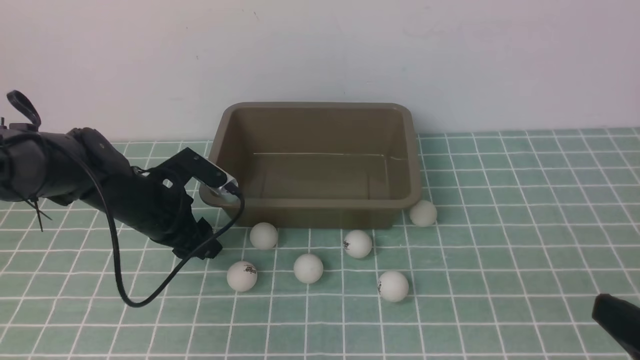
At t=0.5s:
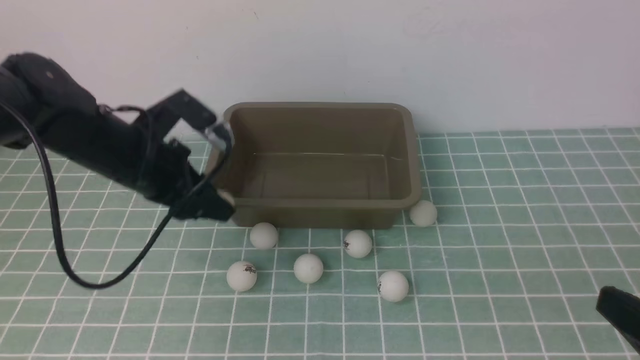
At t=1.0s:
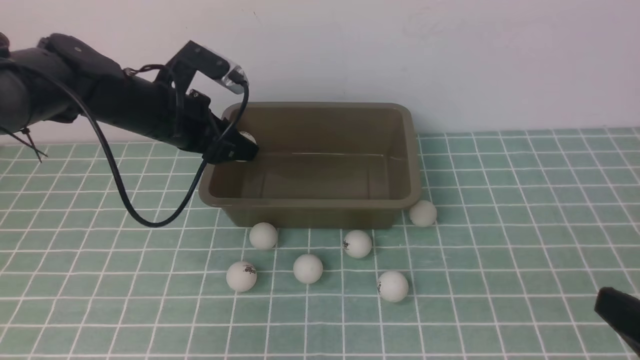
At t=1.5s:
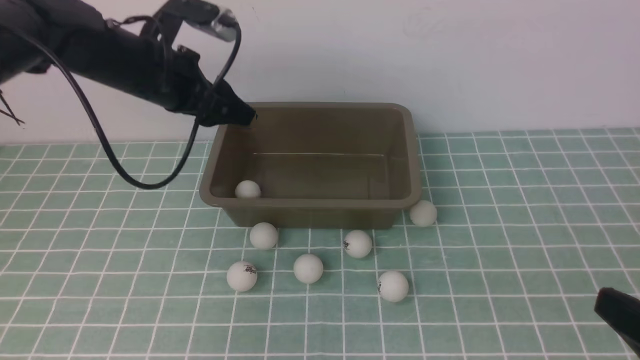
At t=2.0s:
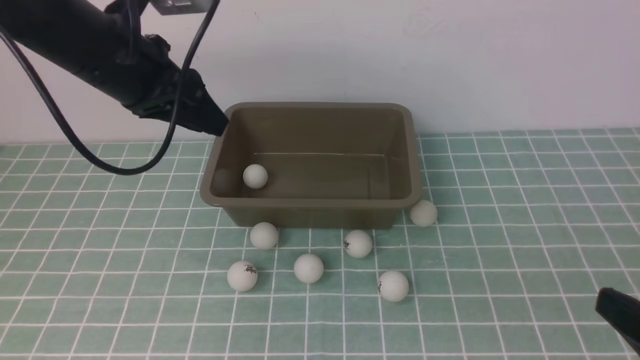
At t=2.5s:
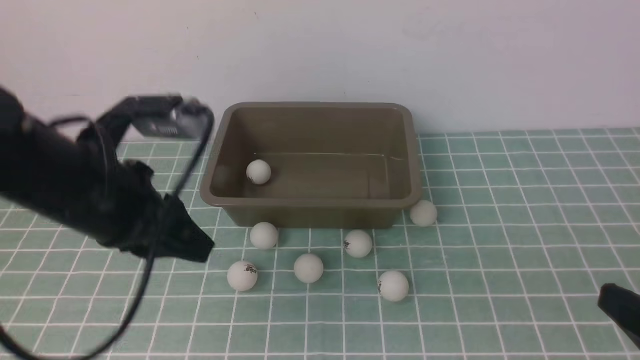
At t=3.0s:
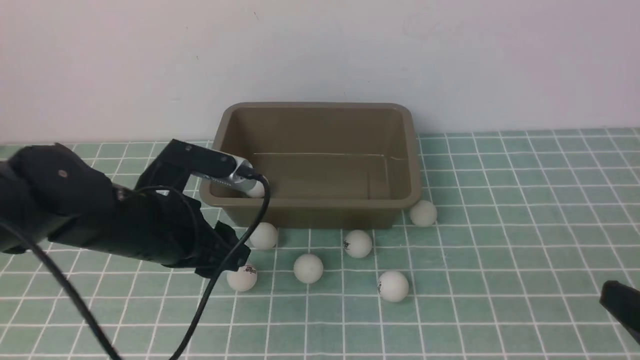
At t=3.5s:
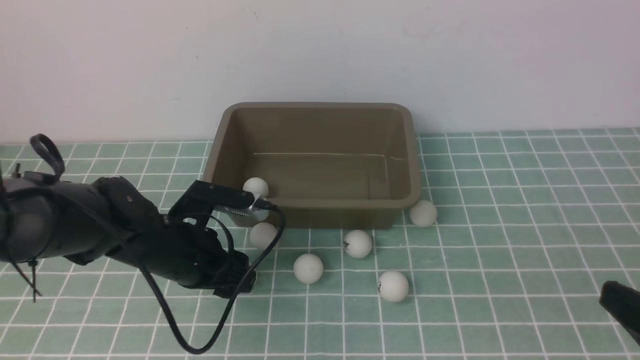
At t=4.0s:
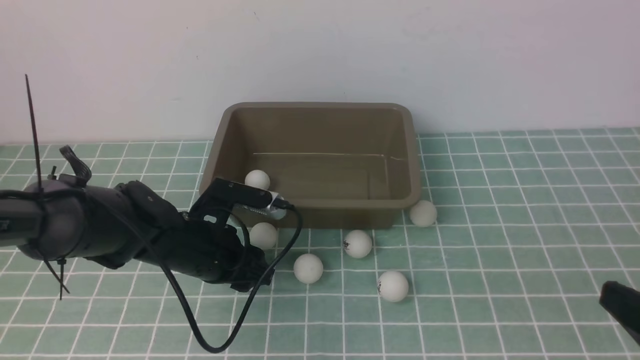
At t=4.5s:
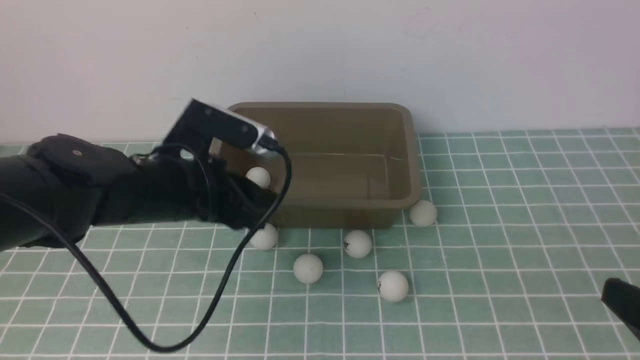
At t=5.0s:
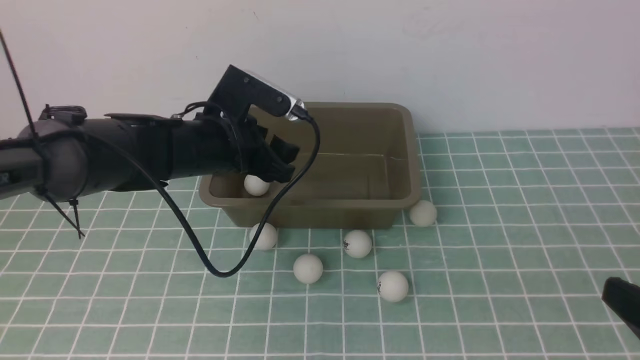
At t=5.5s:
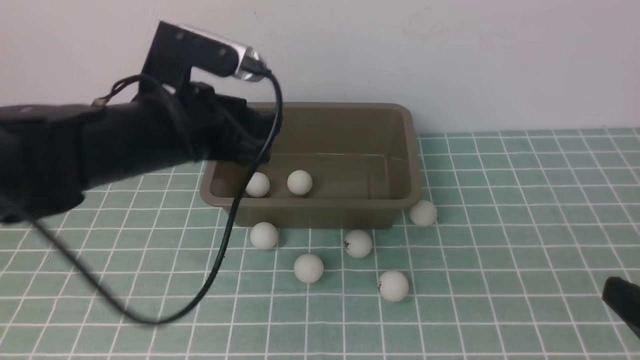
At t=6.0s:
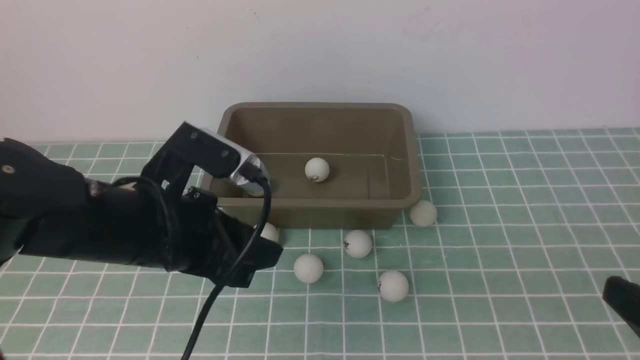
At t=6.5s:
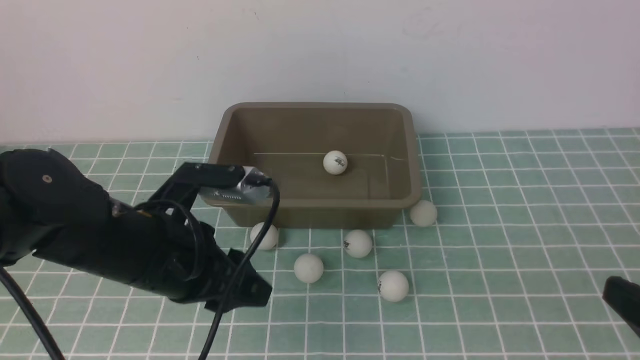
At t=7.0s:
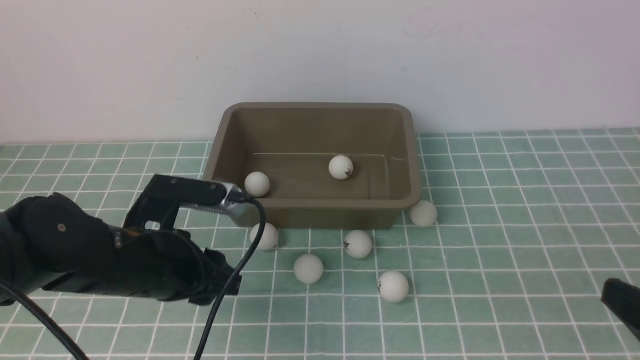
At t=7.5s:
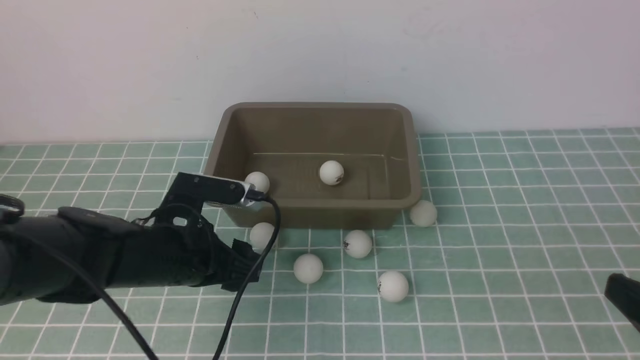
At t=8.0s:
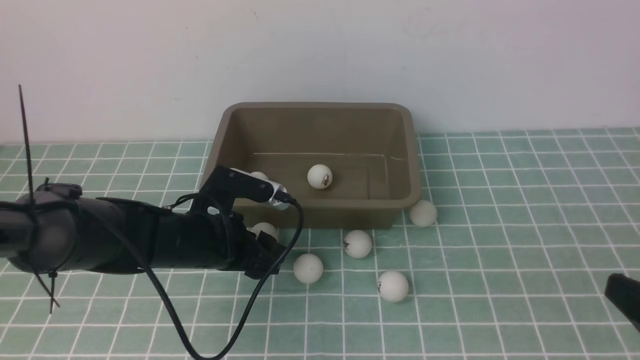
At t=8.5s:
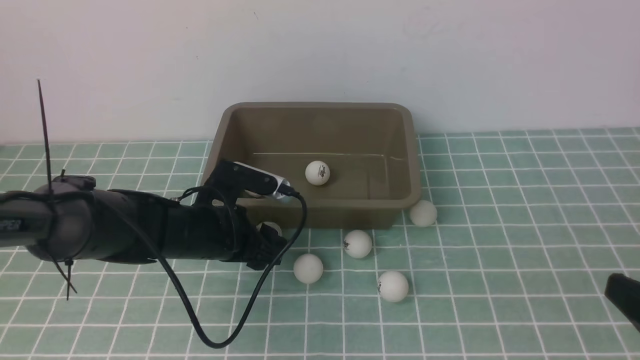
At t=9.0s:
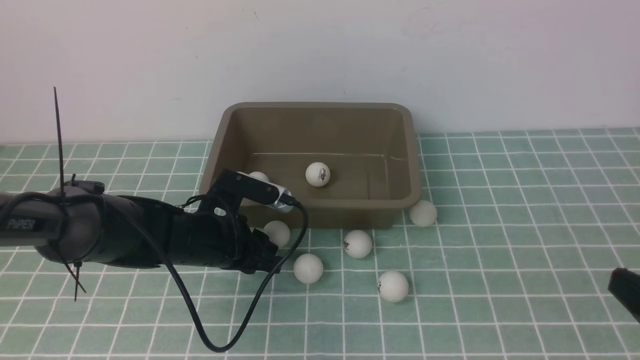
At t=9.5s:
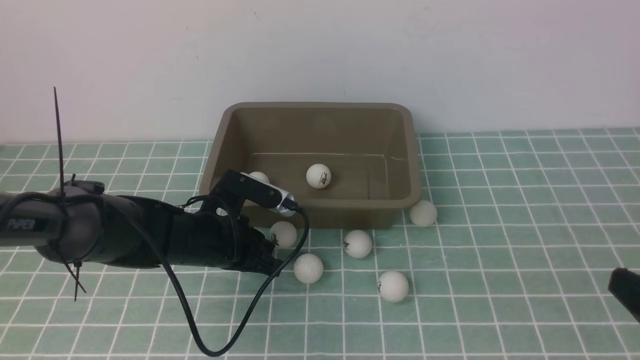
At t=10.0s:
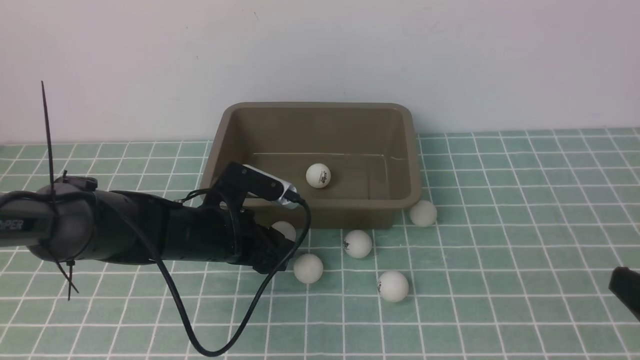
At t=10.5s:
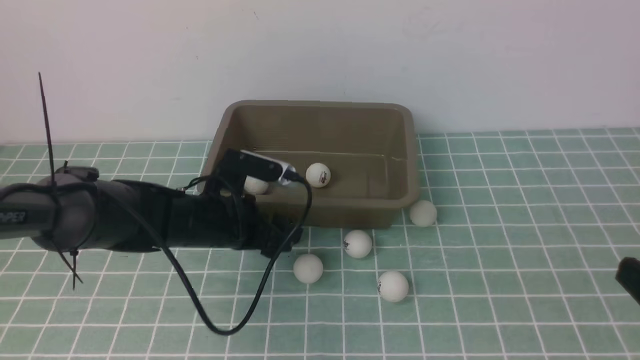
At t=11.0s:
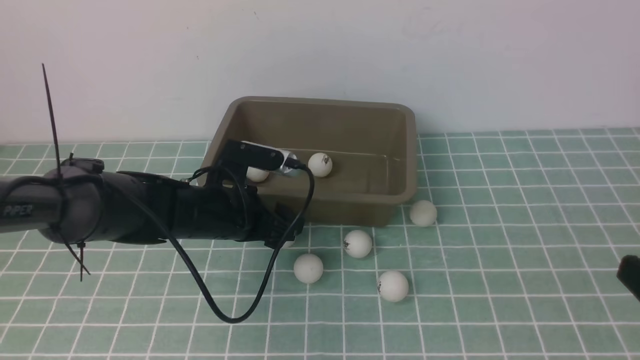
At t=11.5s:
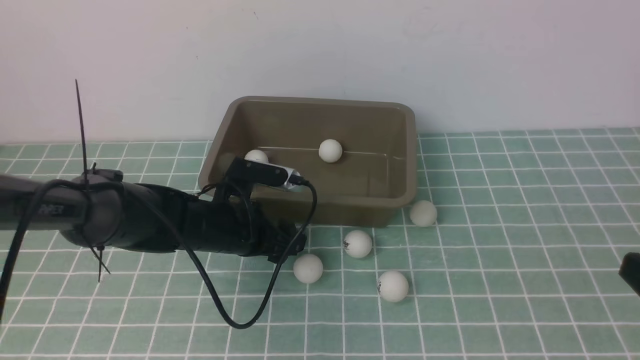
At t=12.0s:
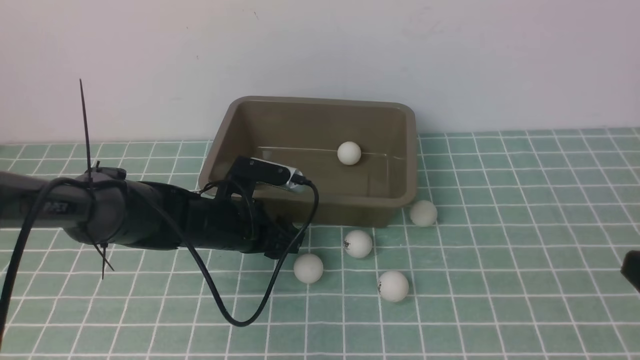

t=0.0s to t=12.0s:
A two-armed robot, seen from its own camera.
Step, t=0.5s to t=1.5s: use the left arm to put the table tennis ball into the box.
Step, t=2.0s to t=4.0s: use the left arm to clamp the table tennis ball closest to it.
Step, t=4.5s to t=5.0s: use the left arm to put the table tennis ball into the box.
t=0.0s to t=2.0s: The left gripper shifts roughly 15 cm upward, and closes up.
t=2.0s to t=4.0s: The left gripper moves downward, approximately 20 cm, and opens its fingers.
t=4.0s to t=6.0s: The left gripper moves upward and backward, approximately 15 cm.
t=6.0s to t=8.0s: The left gripper is displaced downward and forward by some 15 cm, and opens.
t=8.0s to t=10.0s: The left gripper closes, then reopens.
t=10.0s to t=12.0s: The left gripper opens and closes again.

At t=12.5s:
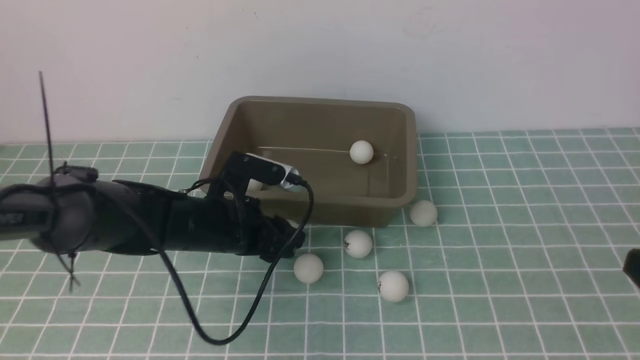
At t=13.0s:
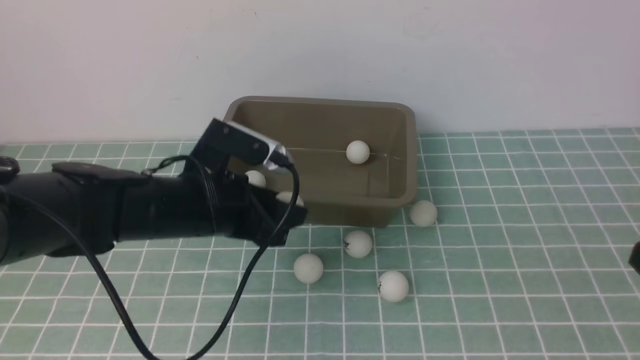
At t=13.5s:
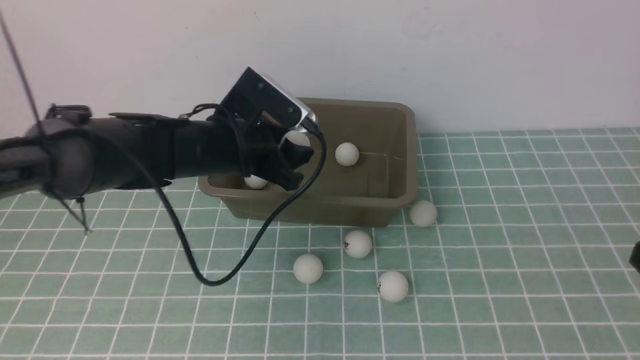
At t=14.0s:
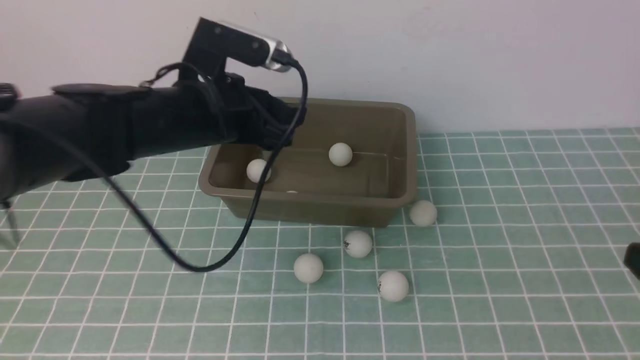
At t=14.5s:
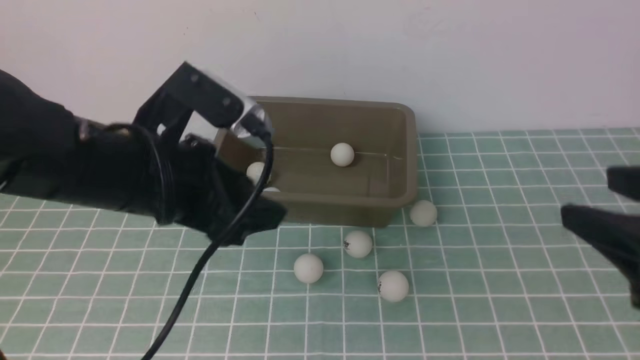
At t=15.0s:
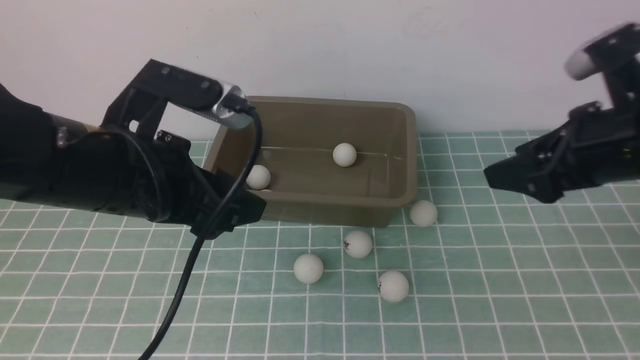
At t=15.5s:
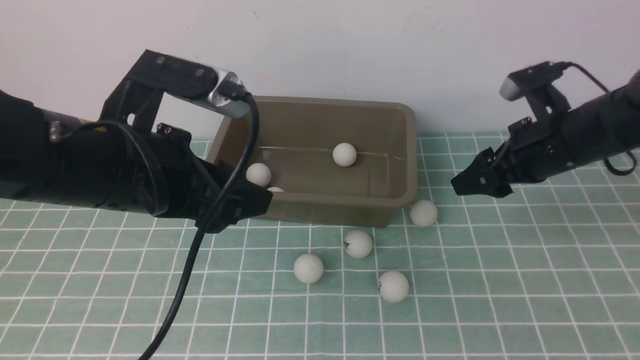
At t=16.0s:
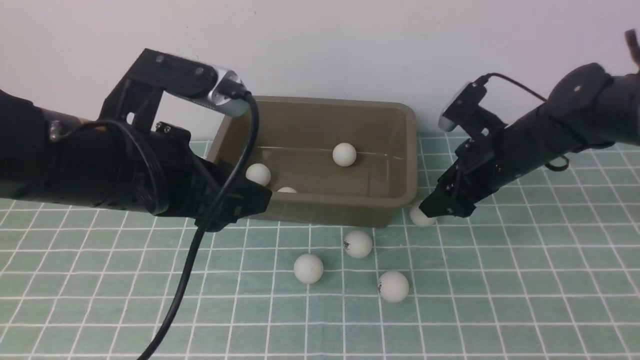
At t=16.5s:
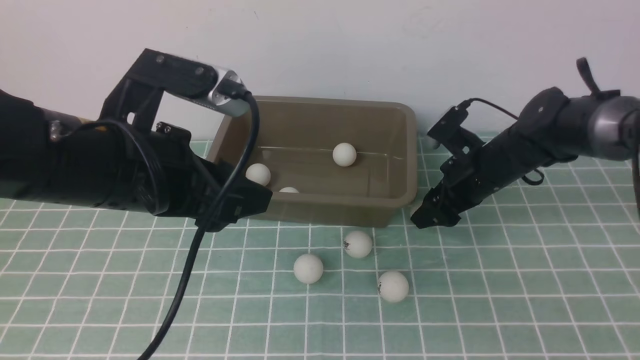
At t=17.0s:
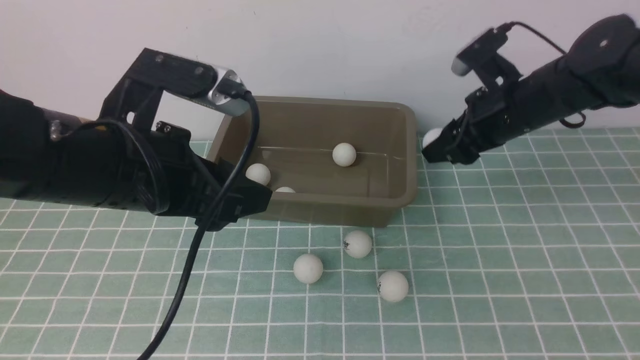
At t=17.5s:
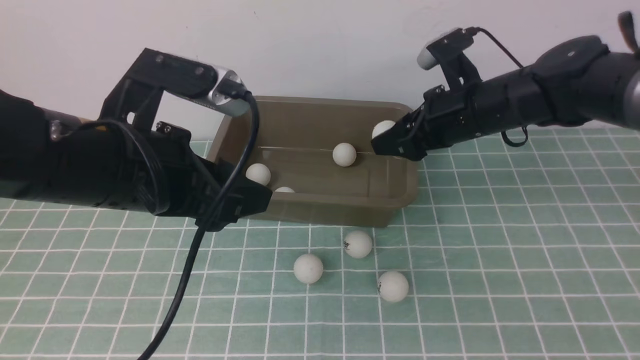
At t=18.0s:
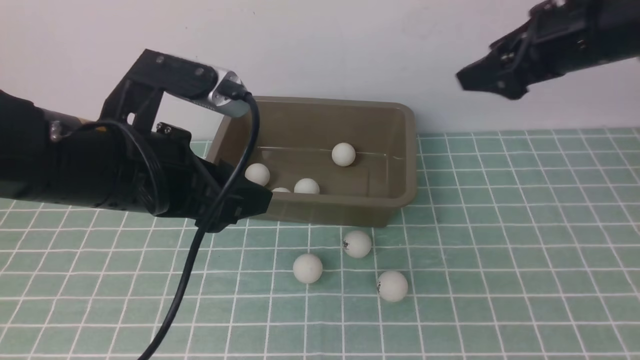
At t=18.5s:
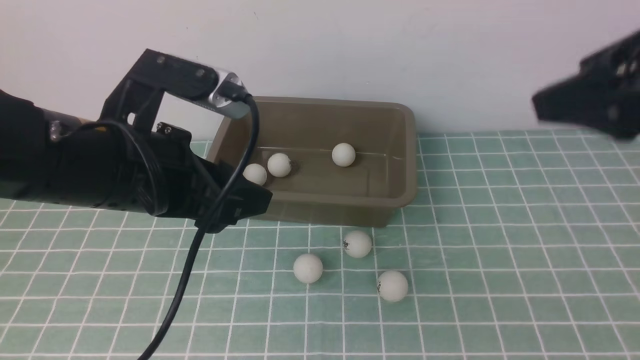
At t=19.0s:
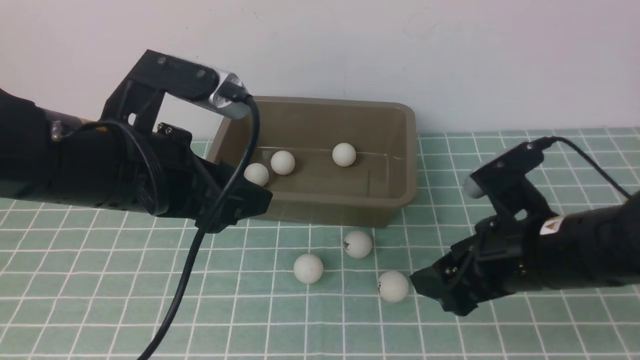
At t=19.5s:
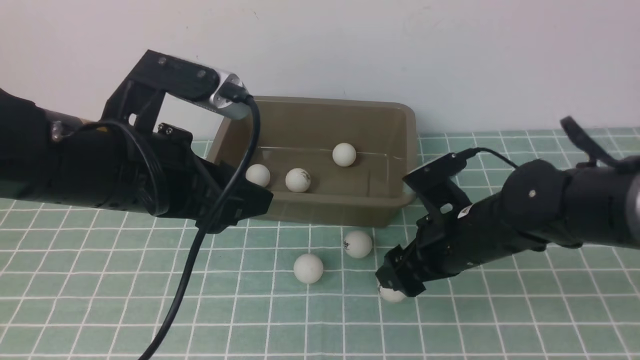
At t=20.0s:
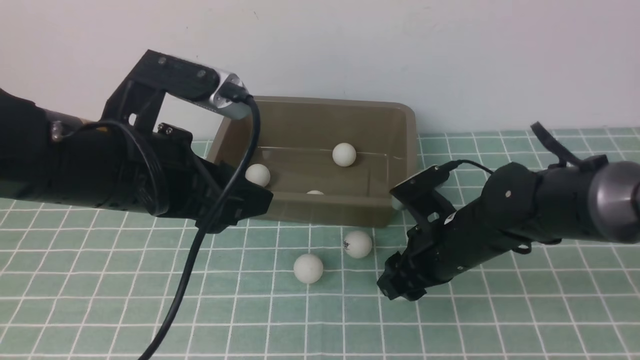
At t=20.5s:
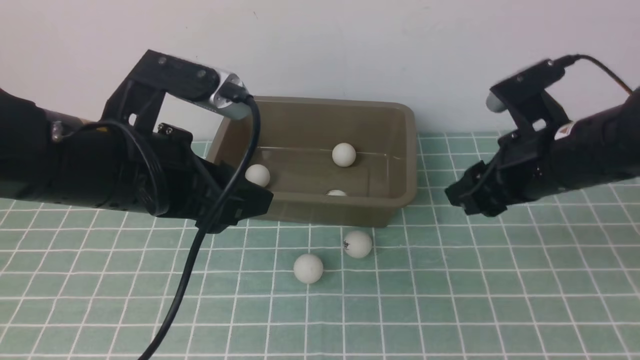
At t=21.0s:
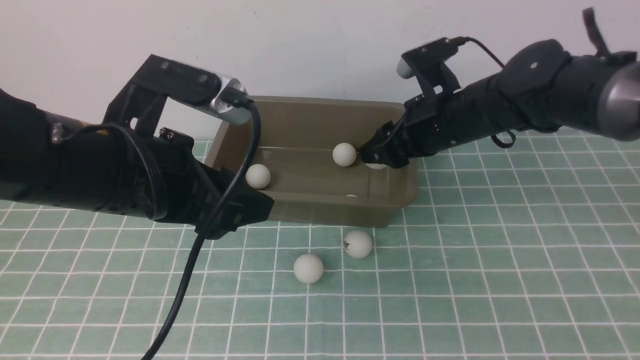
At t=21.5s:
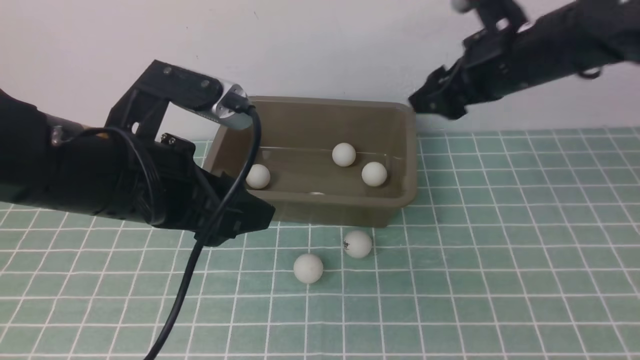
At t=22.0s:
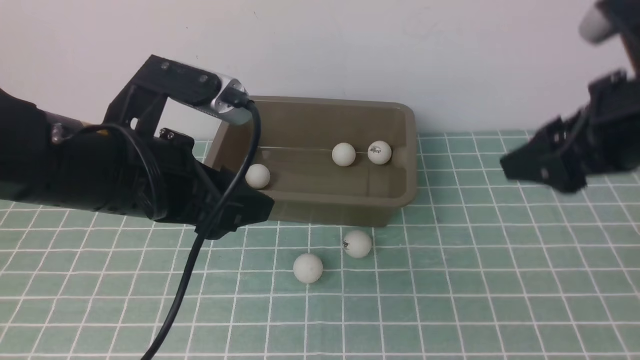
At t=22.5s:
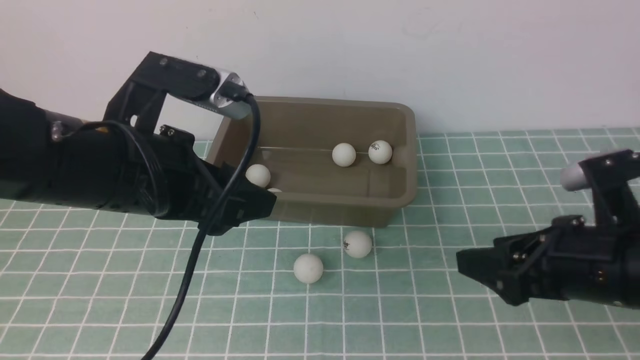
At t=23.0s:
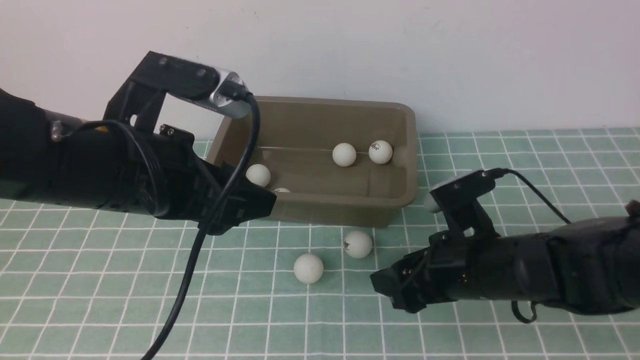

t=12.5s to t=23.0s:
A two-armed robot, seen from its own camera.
Step, t=13.0s to t=13.5s: use the left arm to put the table tennis ball into the box.
Step, t=14.0s to t=16.5s: use the right arm to clamp the table tennis ball closest to it.
Step, t=18.0s to t=20.0s: use the right arm to clamp the table tennis ball closest to it.
Step, t=20.5s to t=21.0s: use the right arm to put the table tennis ball into the box.
t=12.5s to t=14.5s: The left gripper is displaced upward and backward by some 20 cm. The right gripper heads forward, covering about 10 cm.
t=14.5s to t=16.5s: The right gripper is displaced forward and downward by roughly 30 cm.
t=16.5s to t=19.0s: The right gripper travels backward and upward by approximately 20 cm, and opens.
t=19.0s to t=21.0s: The right gripper goes about 15 cm forward, and closes.
t=21.0s to t=23.0s: The right gripper moves backward and downward, about 15 cm.
